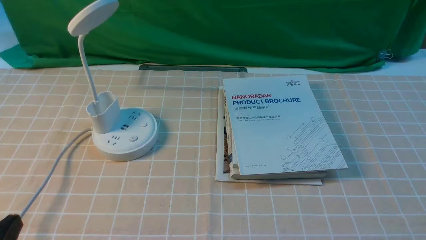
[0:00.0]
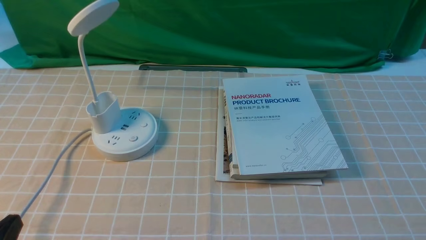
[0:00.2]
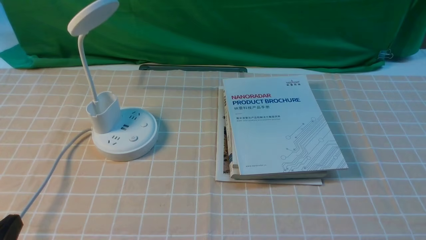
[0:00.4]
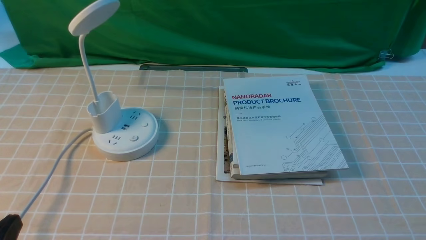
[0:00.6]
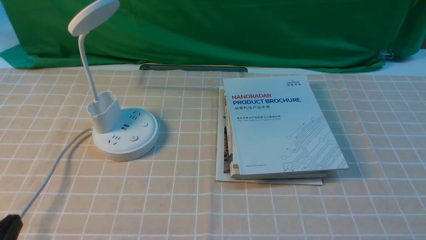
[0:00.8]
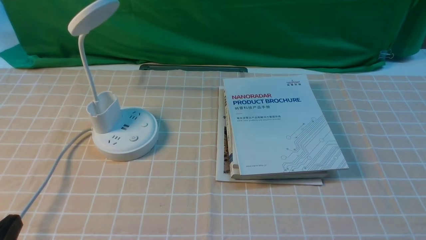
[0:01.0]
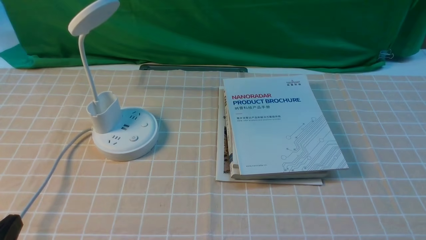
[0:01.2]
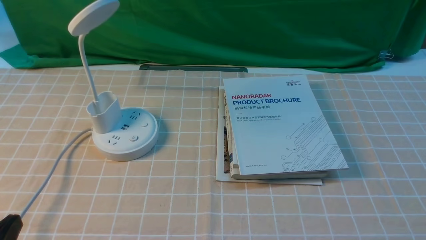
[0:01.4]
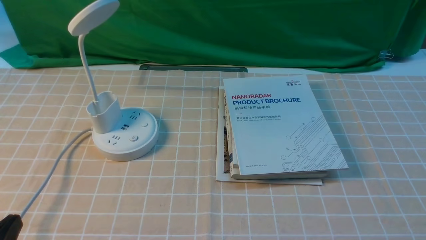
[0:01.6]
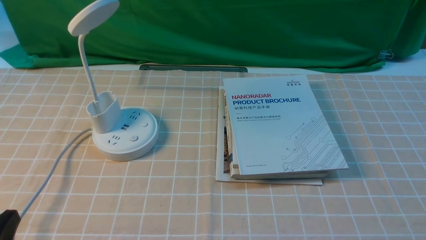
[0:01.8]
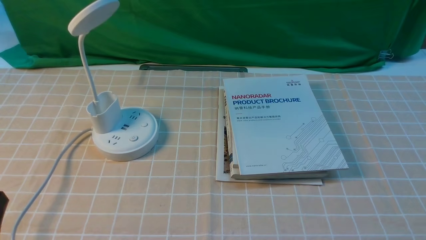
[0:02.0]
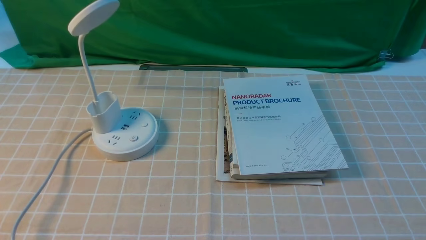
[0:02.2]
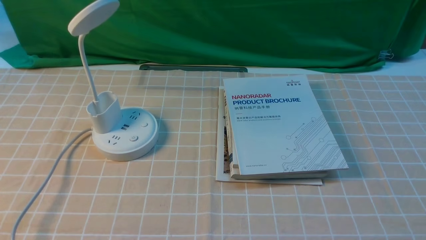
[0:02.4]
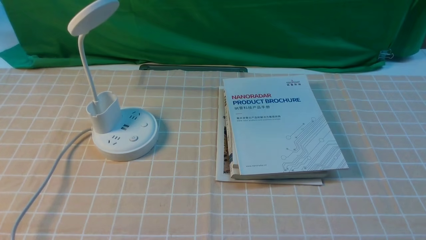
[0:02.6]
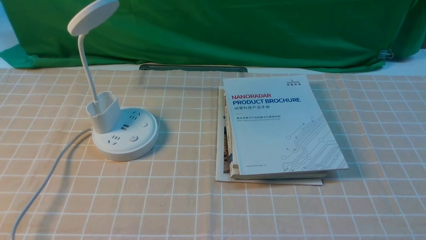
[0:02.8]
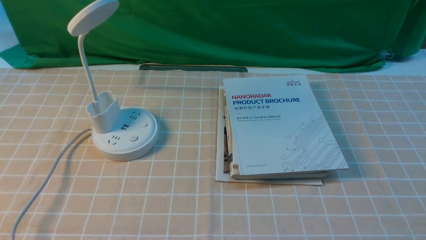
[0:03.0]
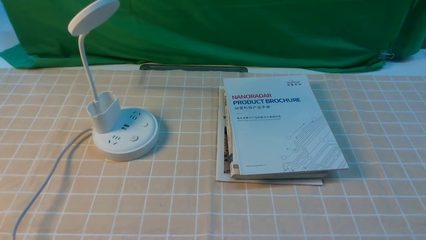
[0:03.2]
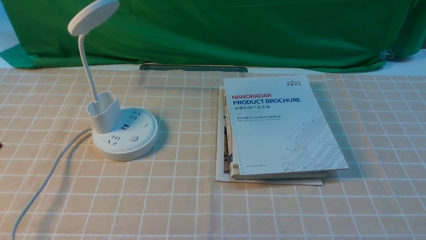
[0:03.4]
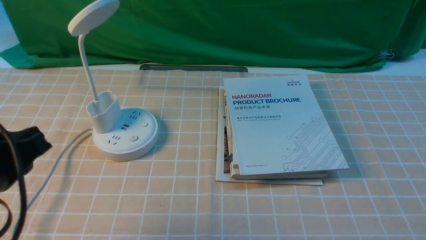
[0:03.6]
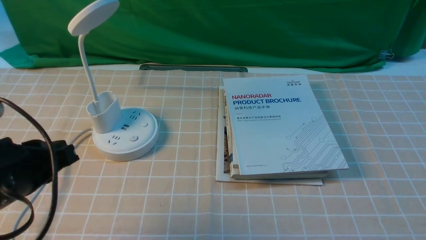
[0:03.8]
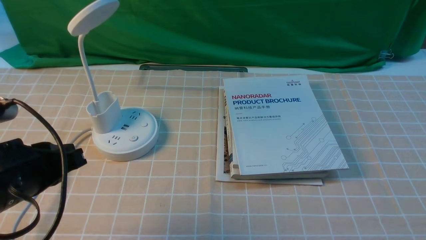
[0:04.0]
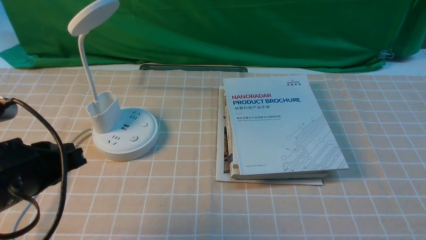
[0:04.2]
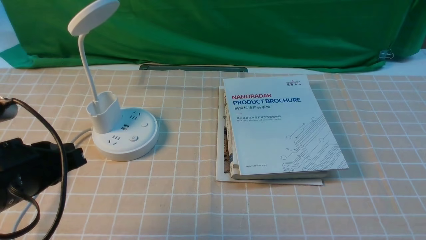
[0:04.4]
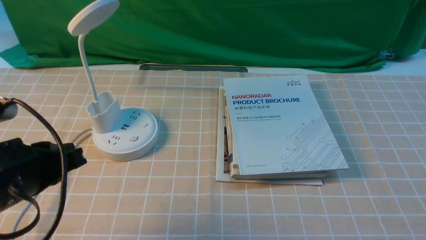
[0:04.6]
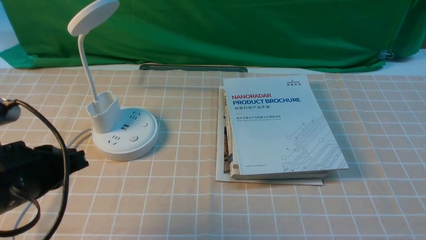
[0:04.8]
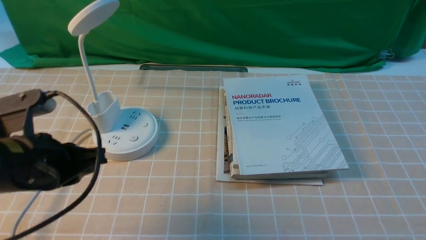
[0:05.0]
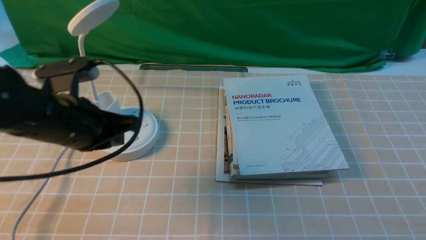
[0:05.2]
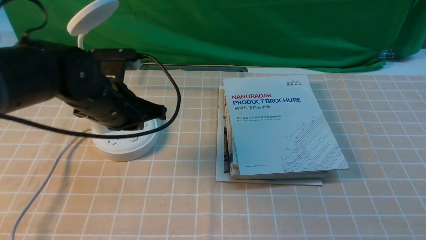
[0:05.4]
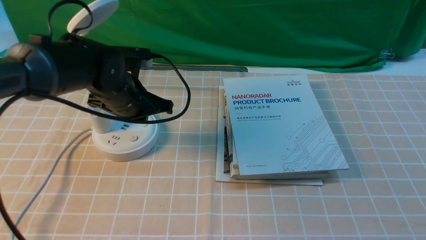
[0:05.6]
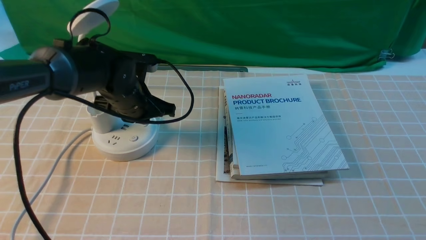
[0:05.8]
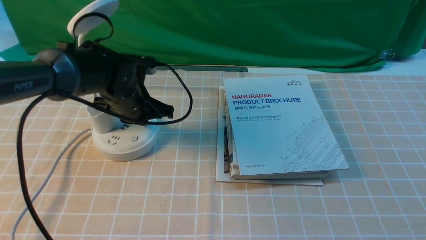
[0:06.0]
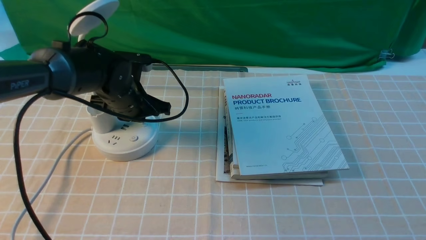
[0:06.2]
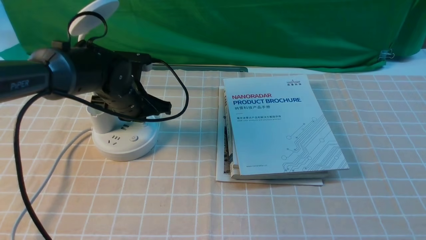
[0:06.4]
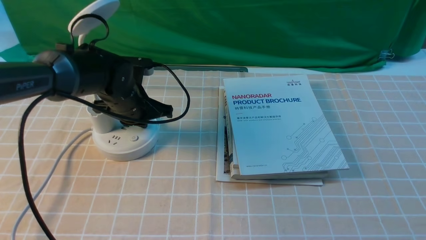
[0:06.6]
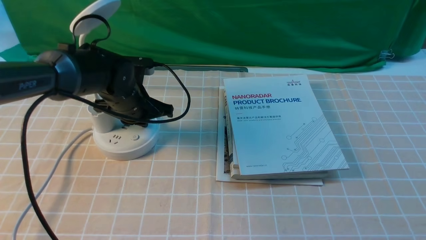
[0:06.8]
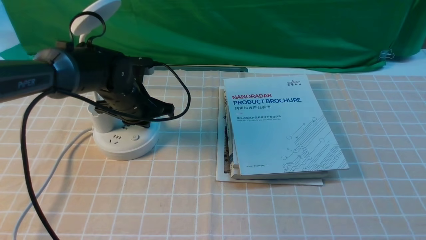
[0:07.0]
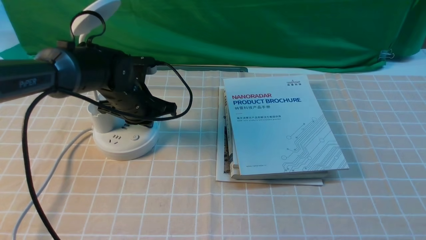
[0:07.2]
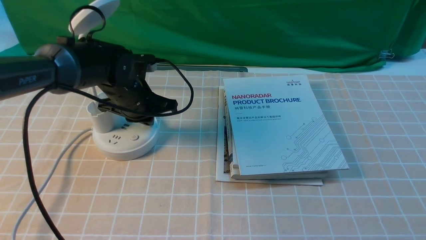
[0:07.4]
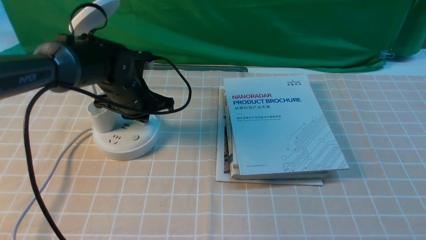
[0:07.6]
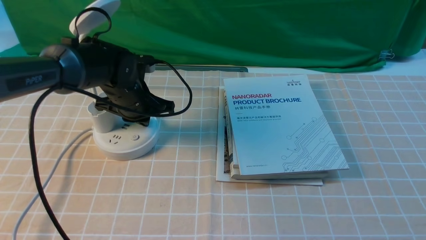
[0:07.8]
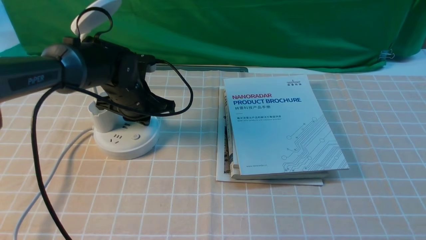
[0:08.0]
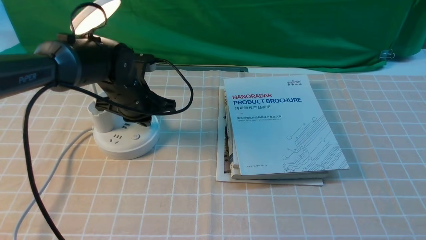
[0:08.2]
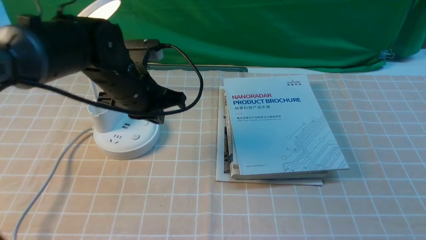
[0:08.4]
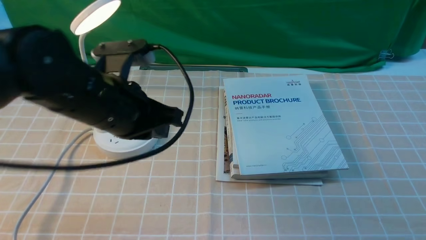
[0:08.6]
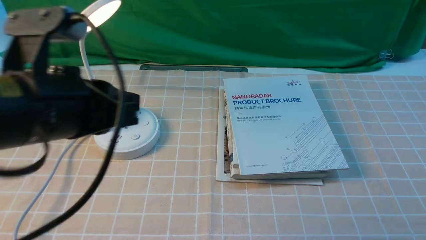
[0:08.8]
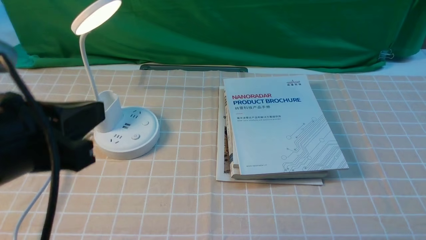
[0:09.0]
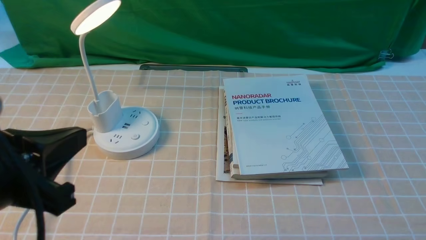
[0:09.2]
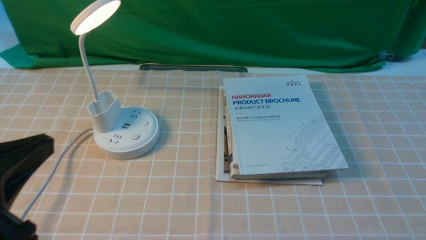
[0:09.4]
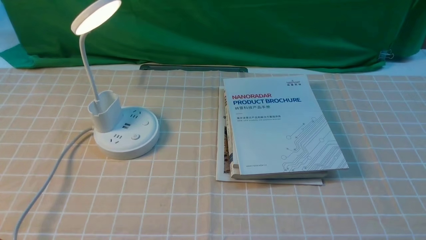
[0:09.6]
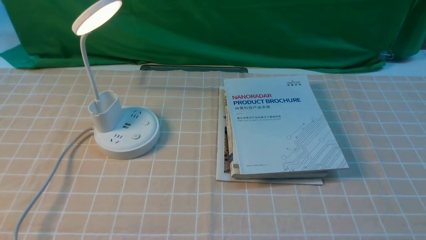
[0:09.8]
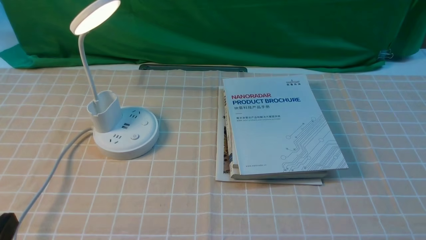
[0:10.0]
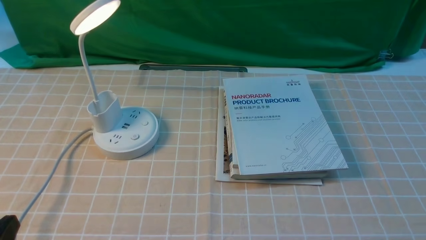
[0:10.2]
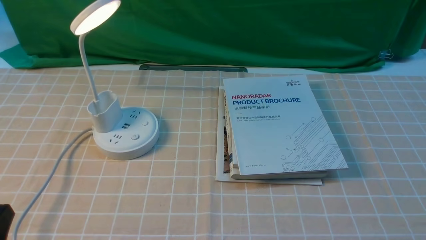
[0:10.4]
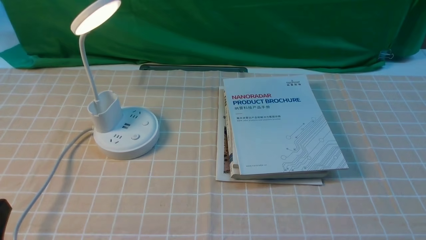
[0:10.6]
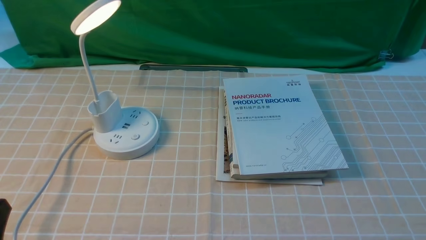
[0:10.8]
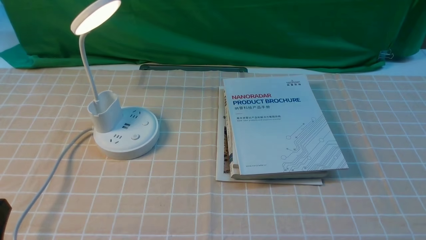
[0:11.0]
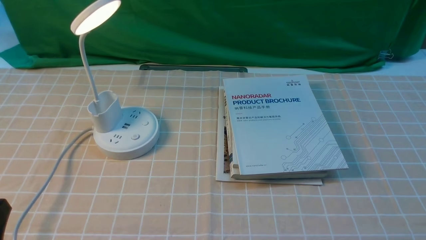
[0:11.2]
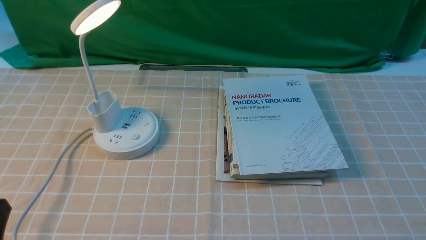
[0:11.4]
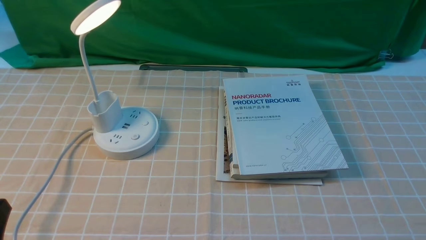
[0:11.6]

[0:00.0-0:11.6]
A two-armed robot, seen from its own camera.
Step, 0:00.0 to 0:08.6: use the left arm to press the button switch on the lamp holder.
0:02.8 to 0:04.4: The left gripper moves forward, about 15 cm.
0:04.4 to 0:05.8: The left gripper shifts approximately 25 cm forward and to the right.
0:05.8 to 0:07.2: The grippers move only a little.
0:07.2 to 0:08.8: The left gripper is displaced backward and upward by approximately 25 cm.
0:08.8 to 0:10.2: The left gripper travels downward, backward and to the left by about 20 cm.

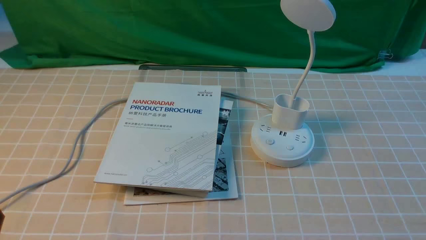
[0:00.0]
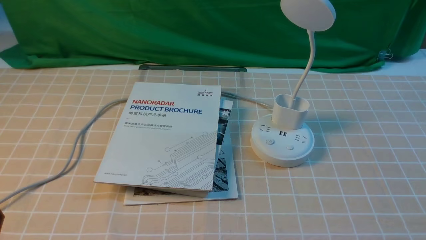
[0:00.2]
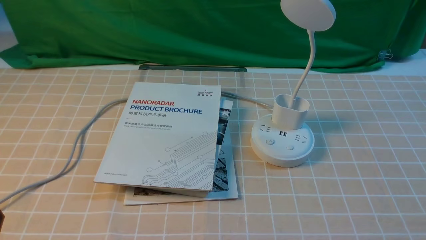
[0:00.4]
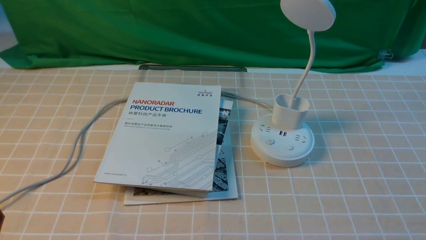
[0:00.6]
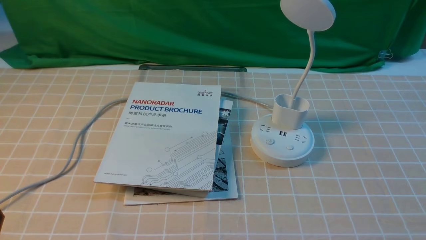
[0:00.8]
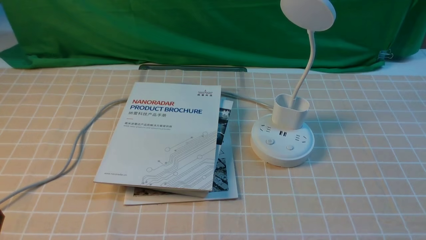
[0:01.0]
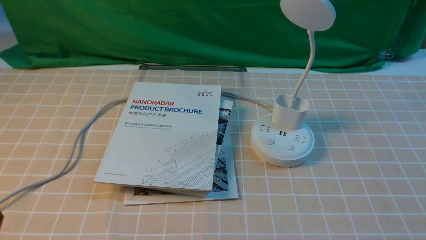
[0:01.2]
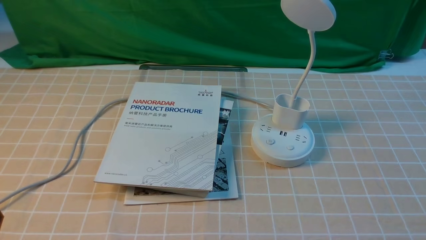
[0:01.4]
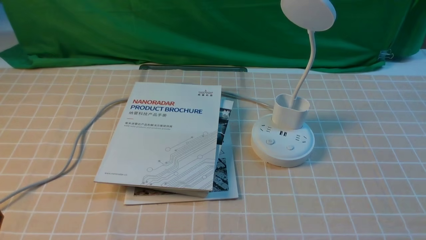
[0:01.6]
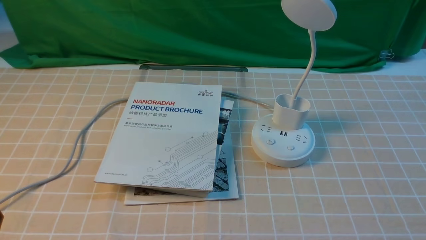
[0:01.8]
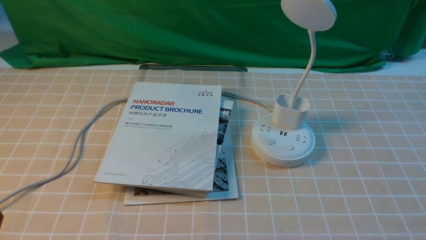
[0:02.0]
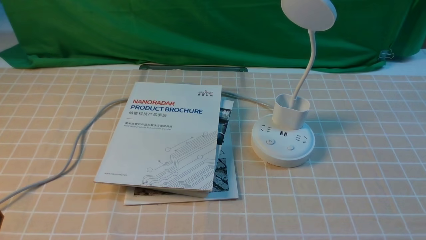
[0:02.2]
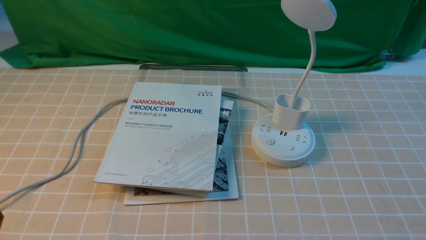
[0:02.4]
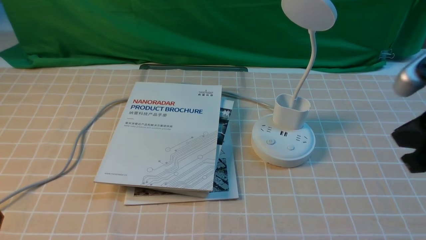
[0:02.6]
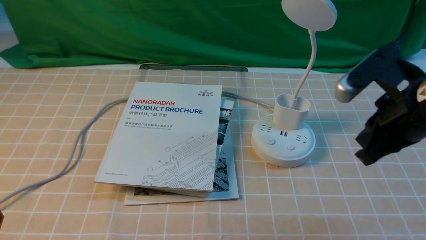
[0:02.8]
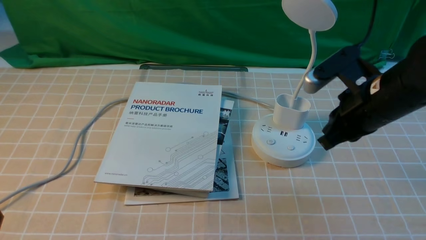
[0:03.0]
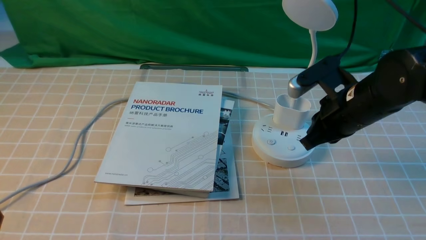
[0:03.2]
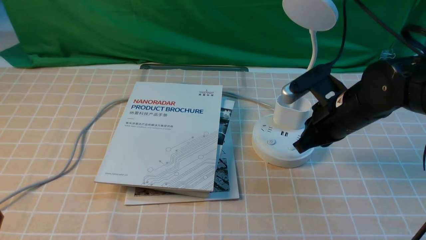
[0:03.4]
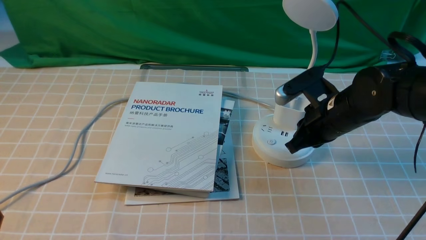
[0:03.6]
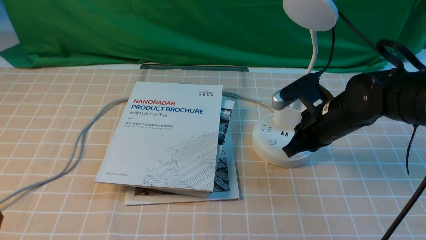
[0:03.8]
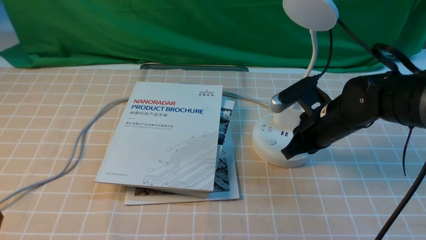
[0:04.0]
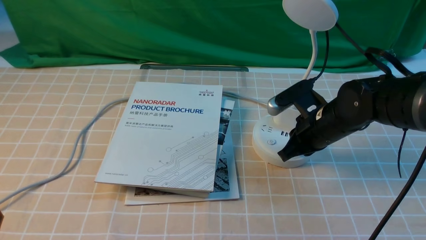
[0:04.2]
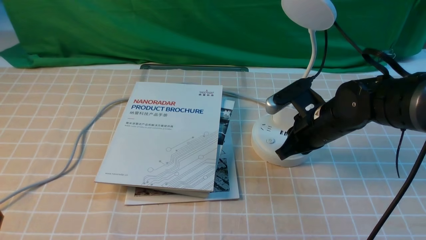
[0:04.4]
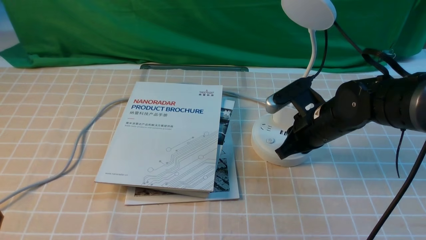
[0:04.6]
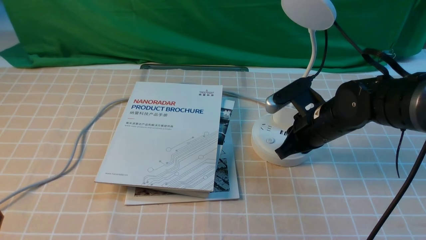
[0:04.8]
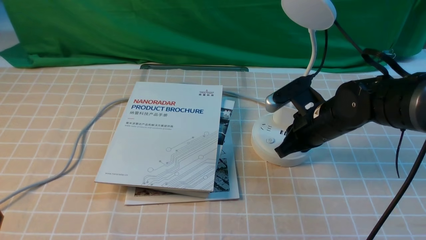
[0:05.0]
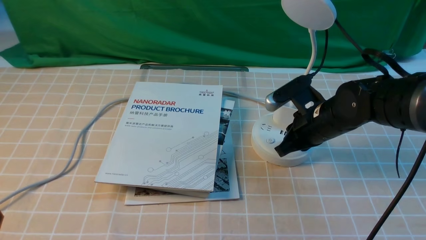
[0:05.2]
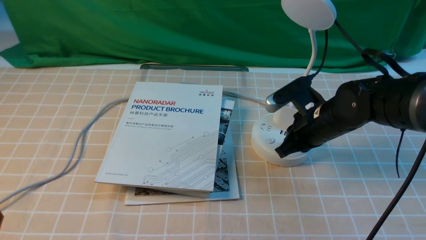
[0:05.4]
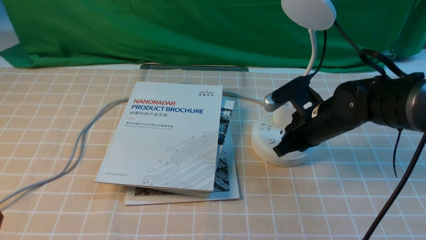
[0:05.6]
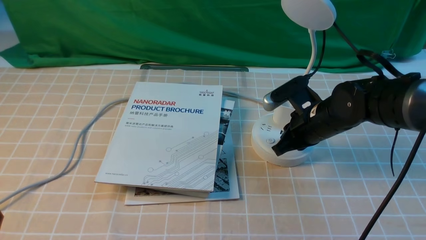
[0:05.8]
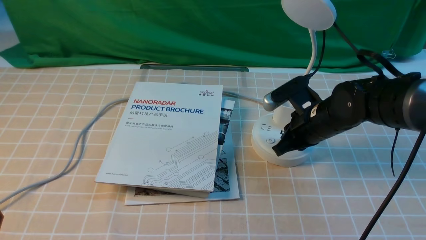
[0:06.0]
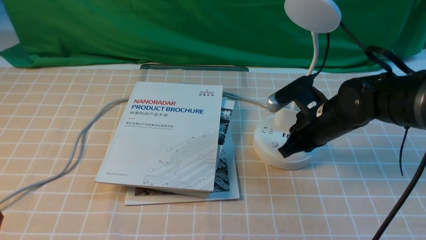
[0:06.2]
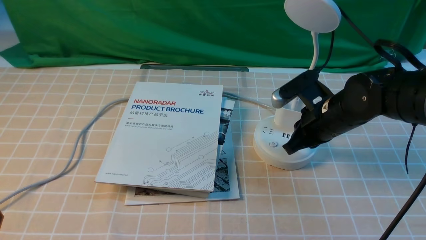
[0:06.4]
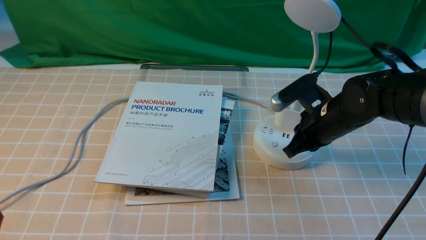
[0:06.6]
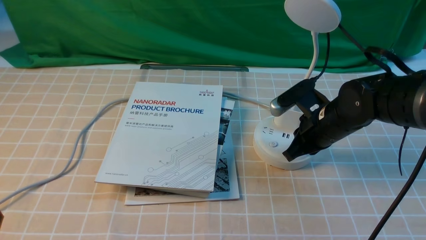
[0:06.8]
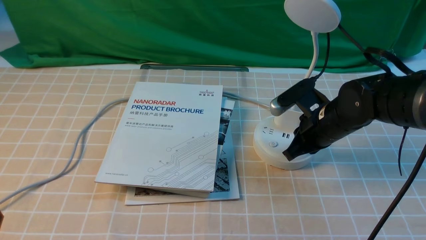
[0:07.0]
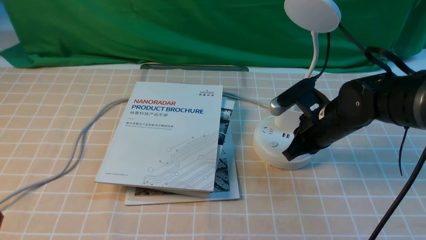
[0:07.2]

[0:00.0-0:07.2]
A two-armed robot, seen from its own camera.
0:01.4 to 0:02.8: The right gripper moves forward, upward and to the left, about 25 cm, and closes its fingers.
0:02.8 to 0:04.4: The right gripper heads downward, forward and to the left, covering roughly 20 cm.
0:04.4 to 0:05.8: Both grippers stay put.
0:05.8 to 0:07.2: The grippers move only a little.
